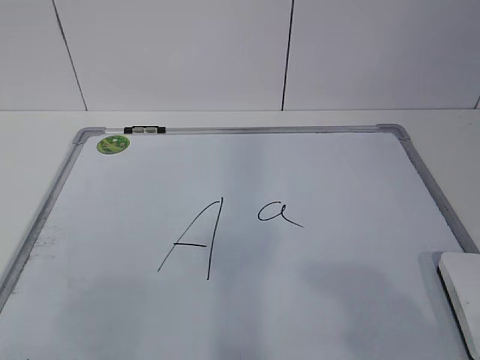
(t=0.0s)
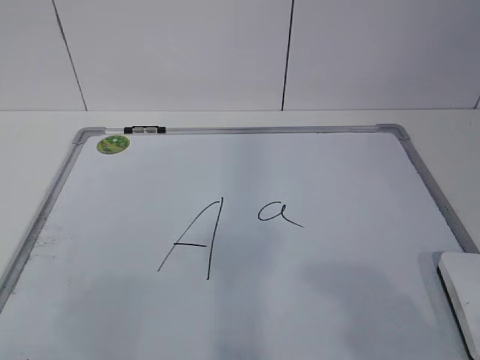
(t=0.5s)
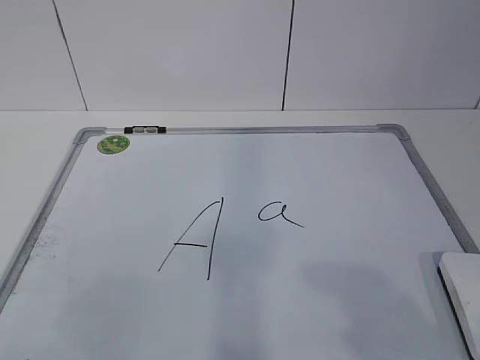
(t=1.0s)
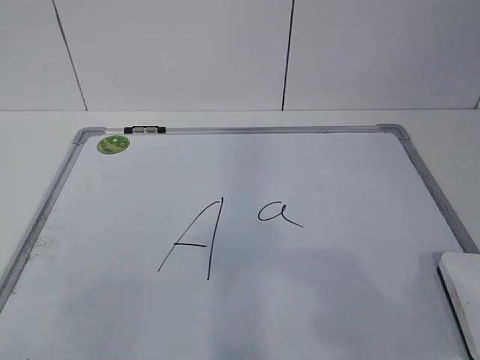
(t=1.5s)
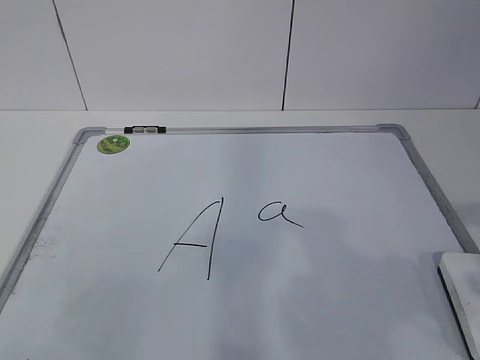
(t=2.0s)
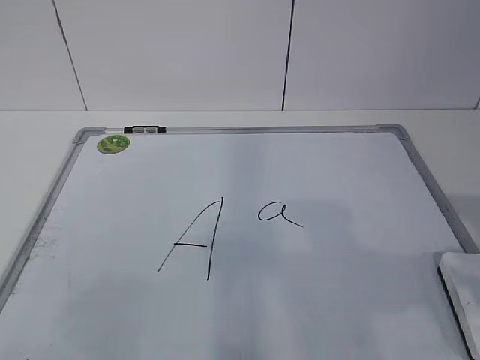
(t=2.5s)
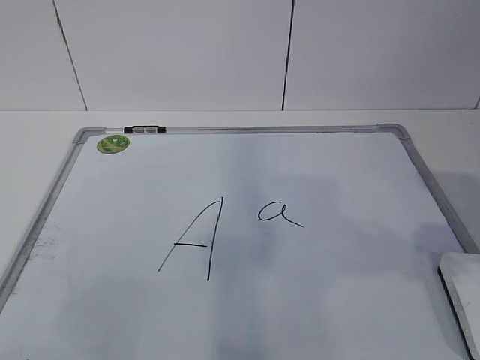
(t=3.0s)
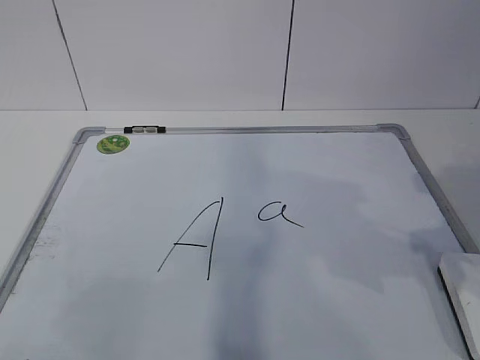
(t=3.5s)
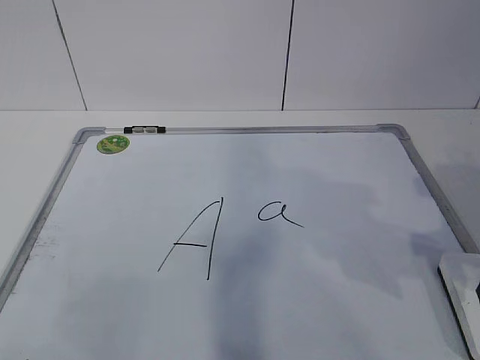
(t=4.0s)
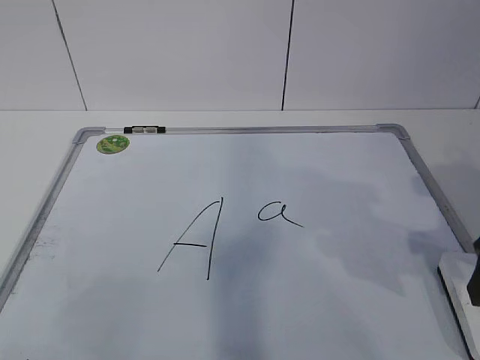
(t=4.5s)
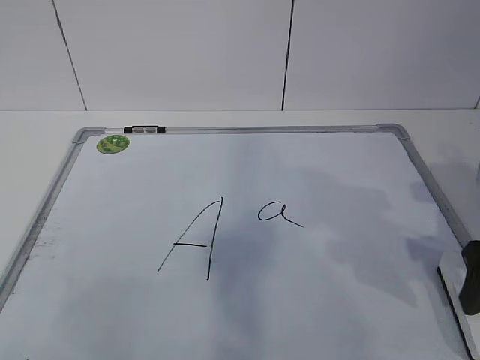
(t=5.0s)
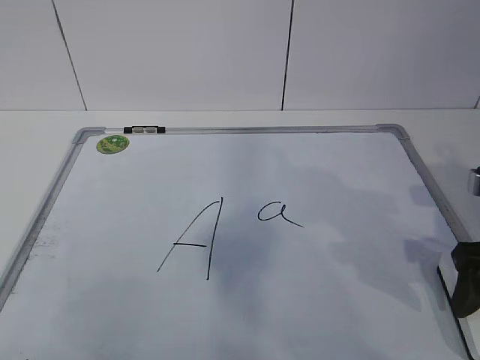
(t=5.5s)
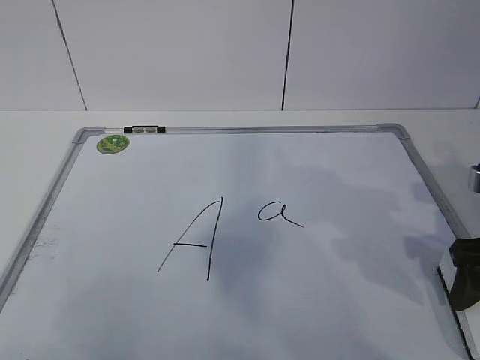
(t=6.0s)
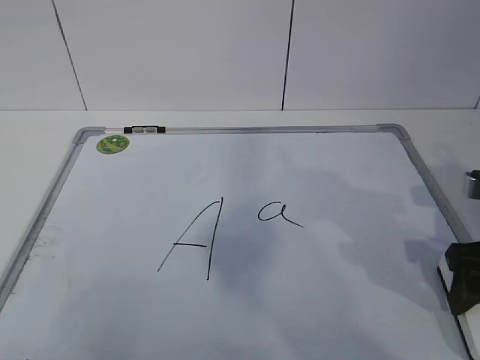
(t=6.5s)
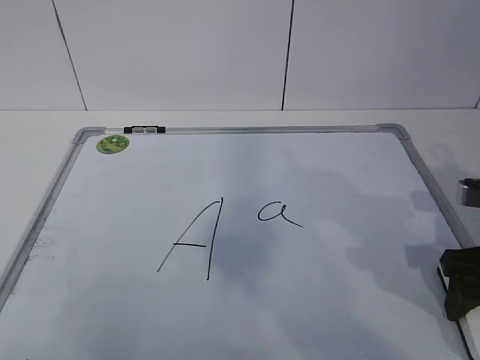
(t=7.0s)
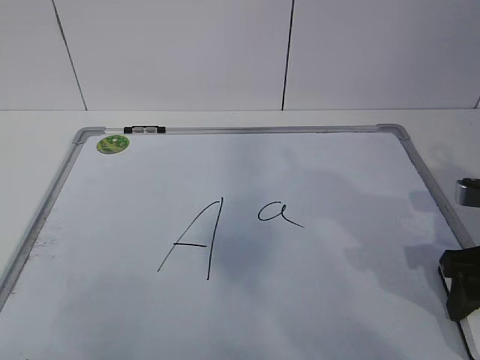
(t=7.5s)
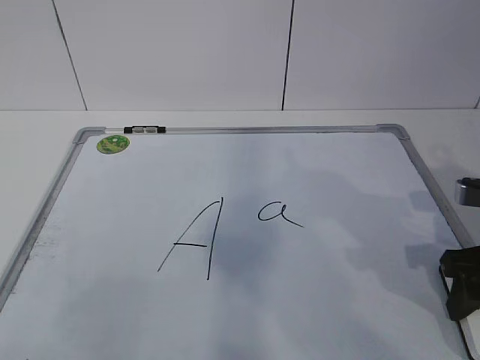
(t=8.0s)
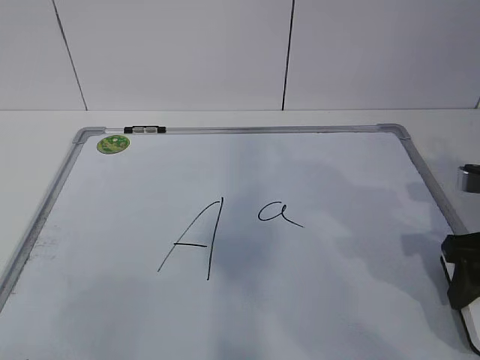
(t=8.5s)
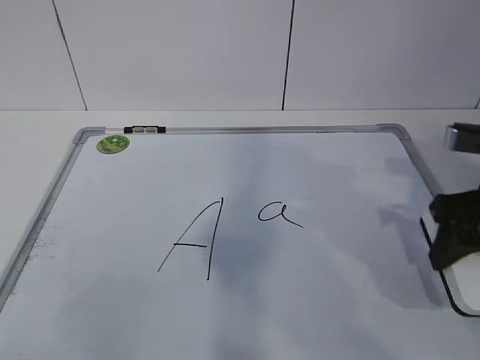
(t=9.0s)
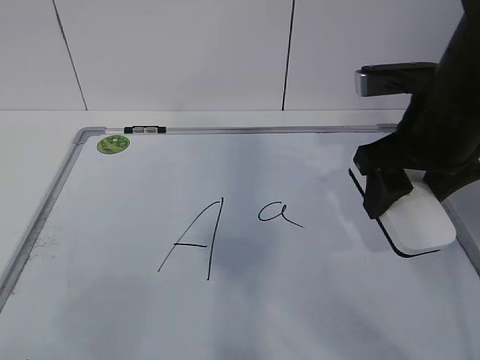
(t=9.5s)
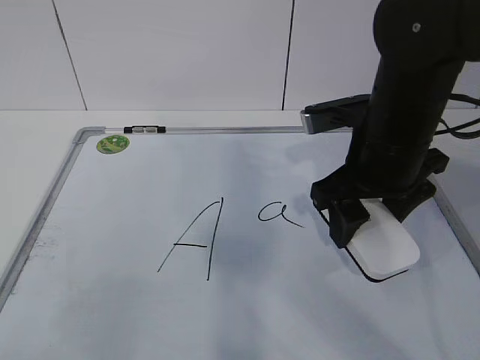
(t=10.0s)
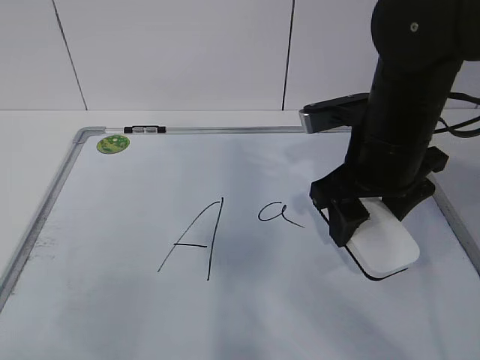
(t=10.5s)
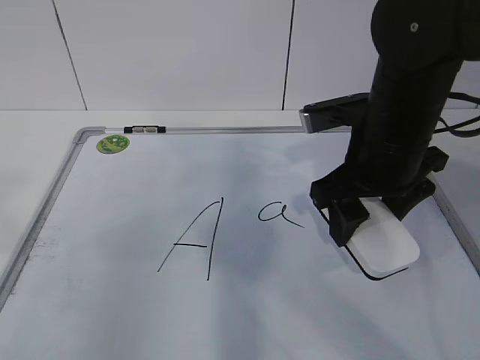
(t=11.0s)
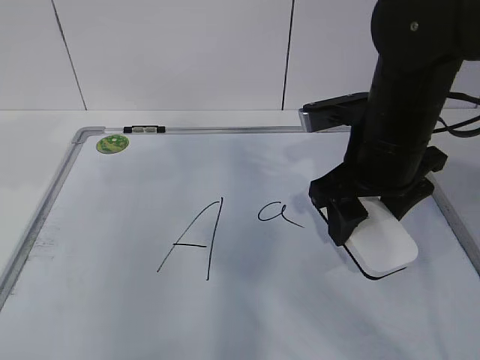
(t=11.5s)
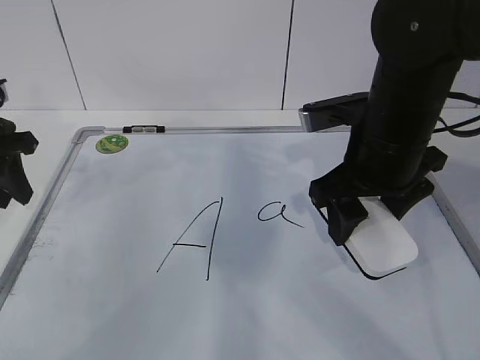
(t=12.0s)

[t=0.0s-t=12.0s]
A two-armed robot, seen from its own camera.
Task of the whole recording: pick up the eraser on the blackboard and erase the letter "a".
Step, t=7.0s to t=11.0s: Hold the drawing board steady with your left hand.
t=2.0s to t=4.0s: The right gripper moves forward, roughly 15 cm, and opens its fingers.
t=4.0s to t=6.0s: The right gripper moves some 5 cm.
t=6.0s to t=8.0s: The right gripper closes up.
t=8.0s to t=10.0s: The right gripper shifts about 15 cm to the left, upward and forward.
t=10.0s to t=12.0s: The left gripper moves forward, approximately 35 cm.

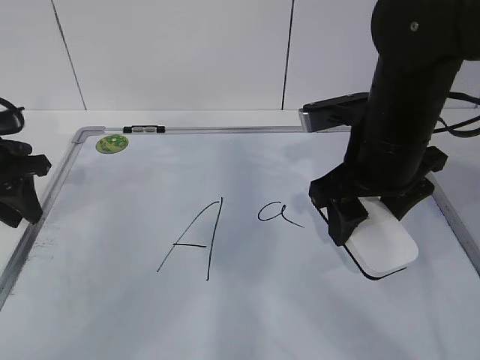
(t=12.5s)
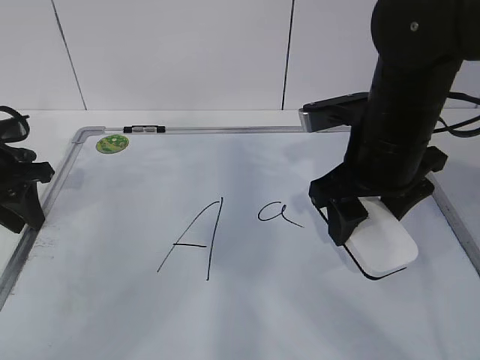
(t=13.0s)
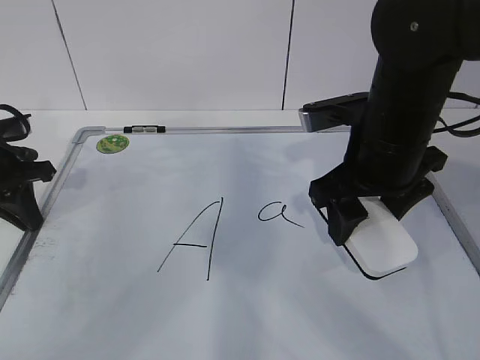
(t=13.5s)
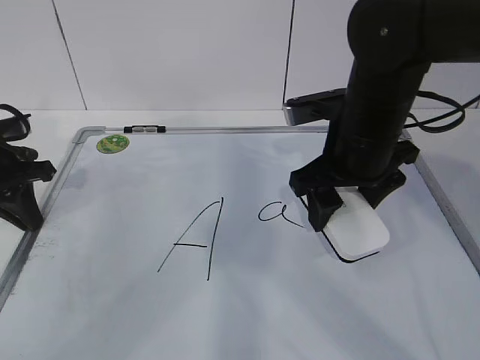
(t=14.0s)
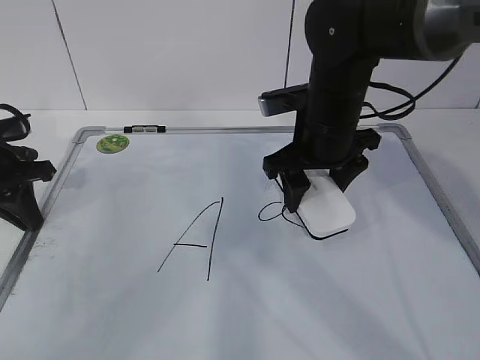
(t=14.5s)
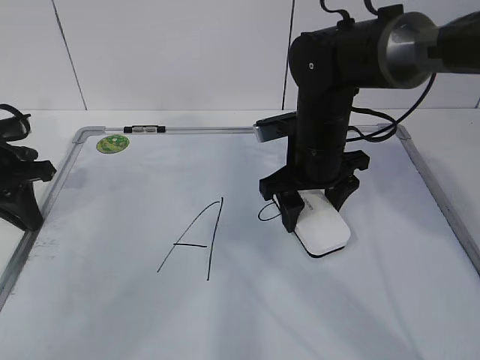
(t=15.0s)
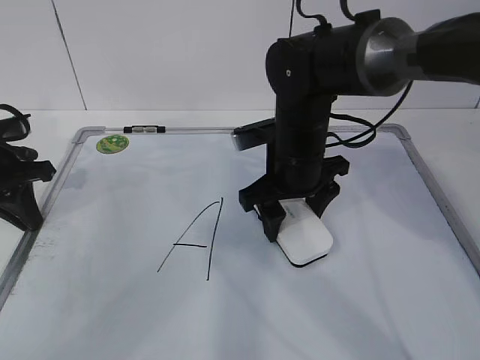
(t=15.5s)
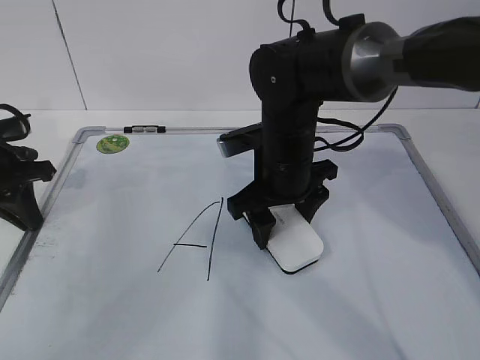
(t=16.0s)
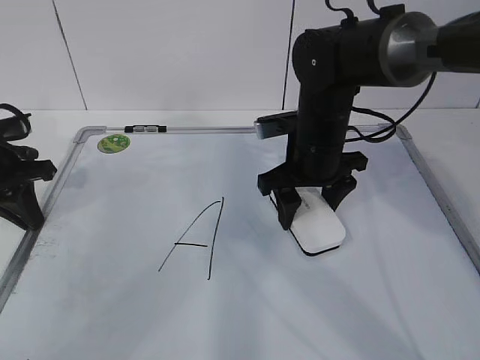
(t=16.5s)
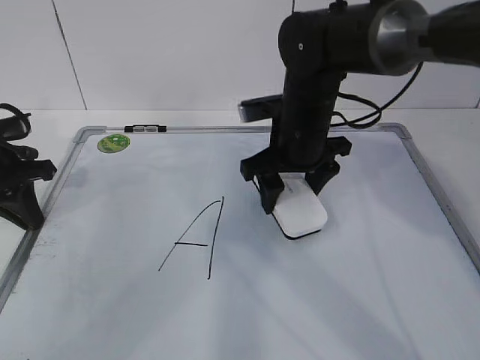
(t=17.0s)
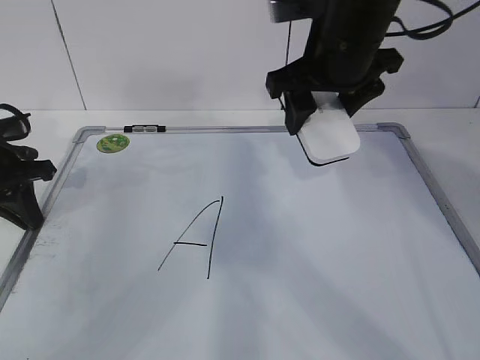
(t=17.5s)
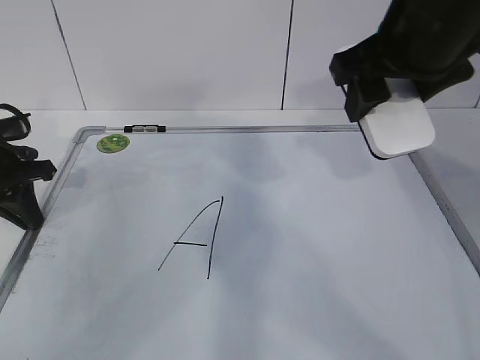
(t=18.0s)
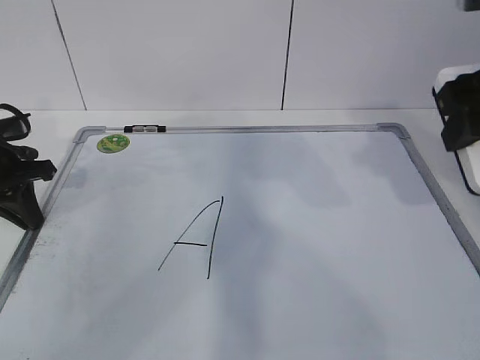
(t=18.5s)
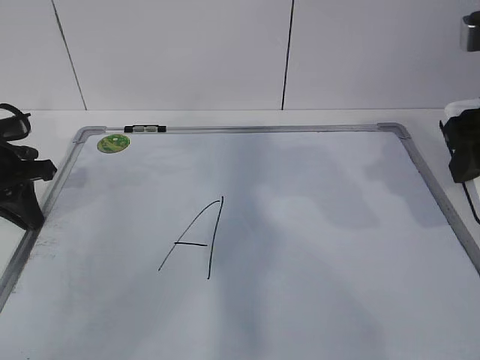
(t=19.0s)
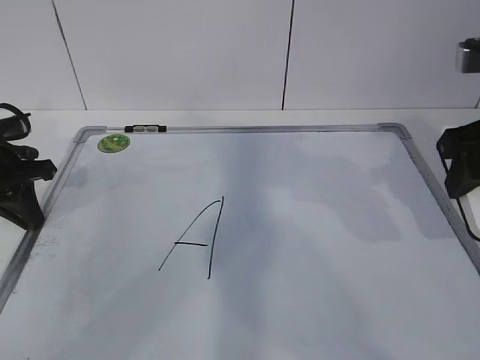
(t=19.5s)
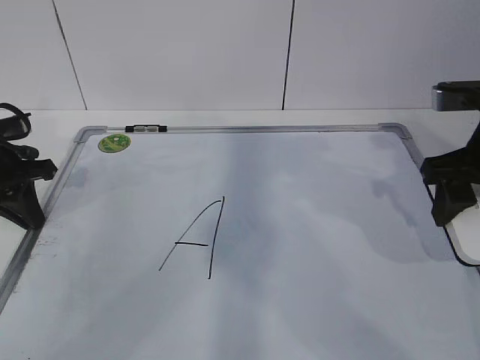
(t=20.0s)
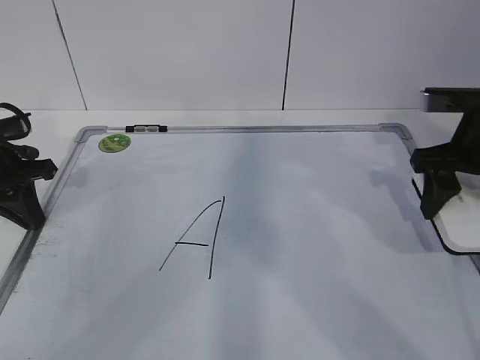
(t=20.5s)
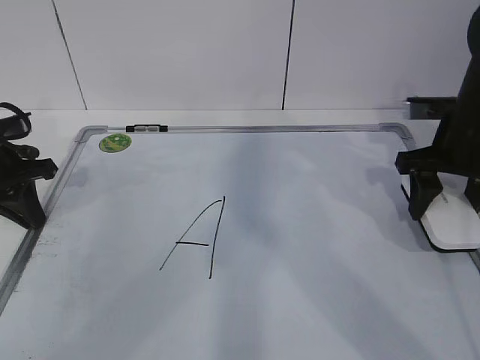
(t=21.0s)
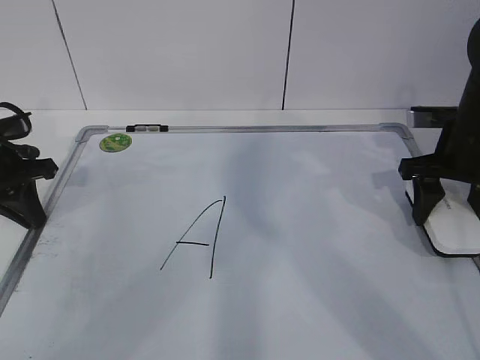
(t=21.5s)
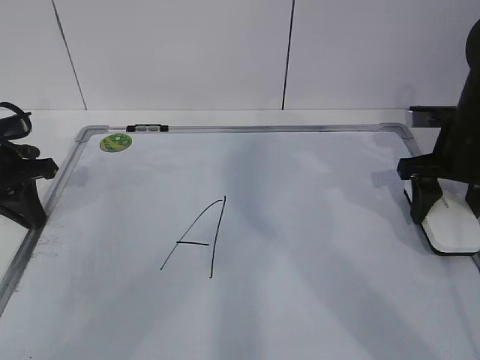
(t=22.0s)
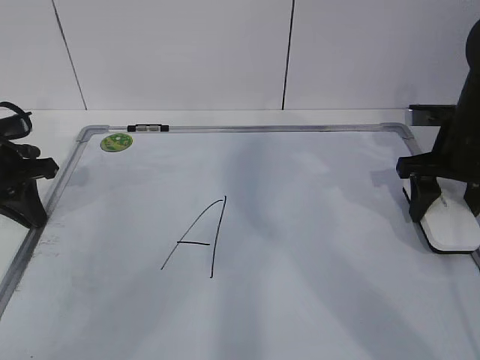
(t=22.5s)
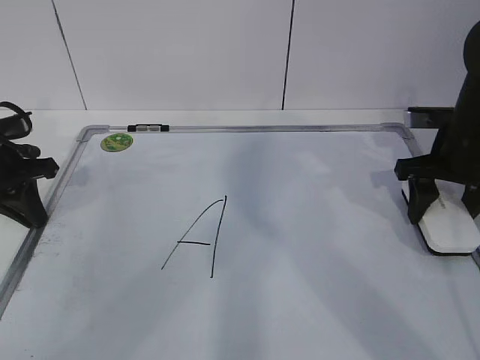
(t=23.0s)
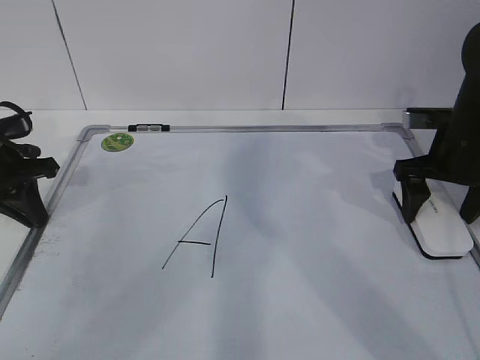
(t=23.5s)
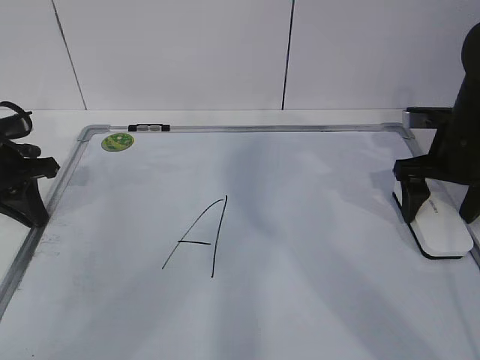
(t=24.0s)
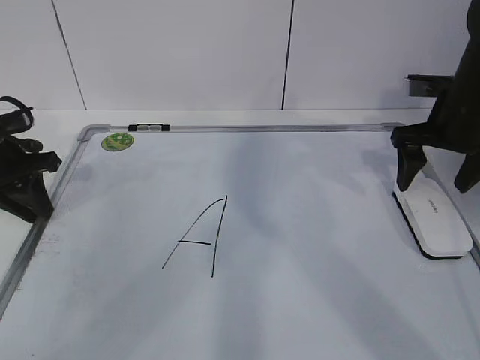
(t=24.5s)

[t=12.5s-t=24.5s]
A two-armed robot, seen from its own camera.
Task of the whole recording: pick up the eraser on the blackboard and erase the letter "a".
Step, t=12.5s to t=14.0s: Erase the letter a with your right hand.
Step, t=14.5s to t=19.0s: Put down the eraser with your right hand.
t=12.5s to t=14.5s: The left gripper closes up. Meanwhile the right gripper travels forward by some 5 cm.
t=16.5s to t=18.5s: The right gripper shifts roughly 25 cm upward, backward and to the right.
t=18.5s to t=20.5s: The right gripper heads downward and forward, covering about 15 cm.
t=20.5s to t=22.5s: The right gripper shifts by about 5 cm.
t=22.5s to t=24.5s: The left gripper opens its fingers, while the right gripper opens up.

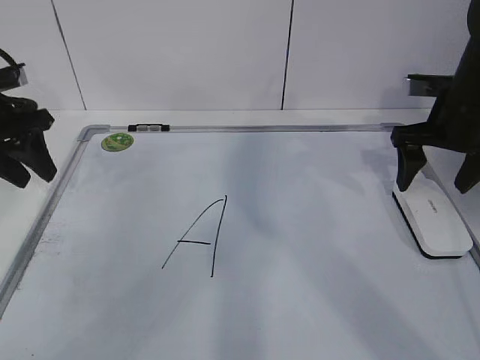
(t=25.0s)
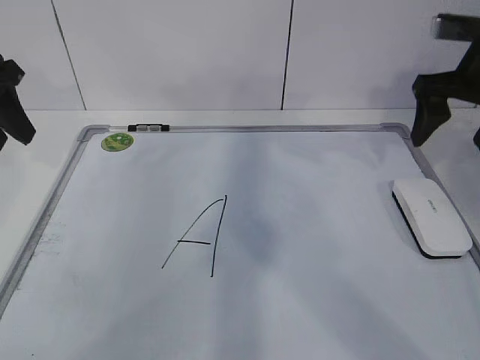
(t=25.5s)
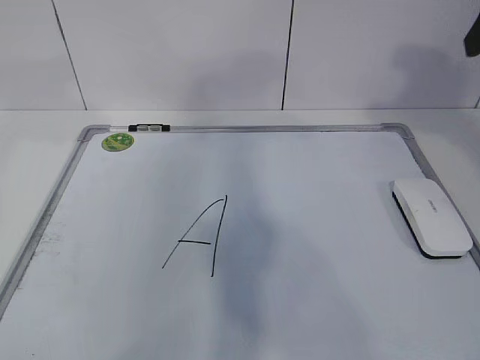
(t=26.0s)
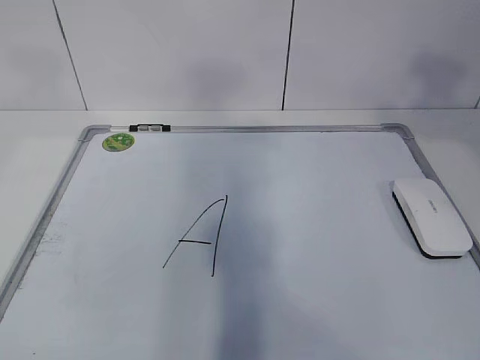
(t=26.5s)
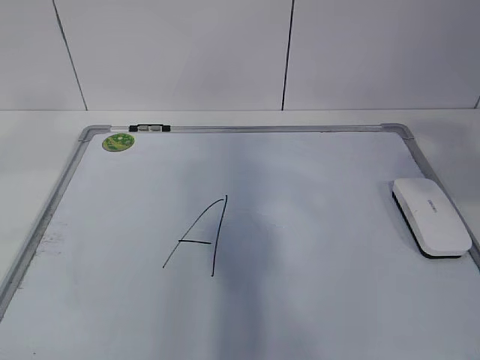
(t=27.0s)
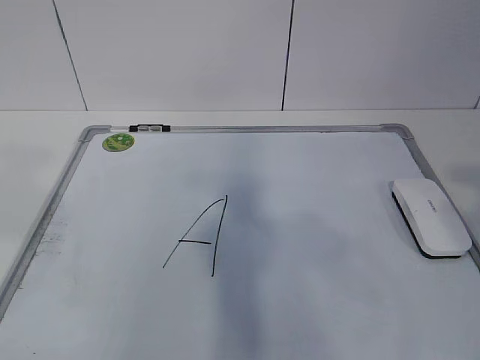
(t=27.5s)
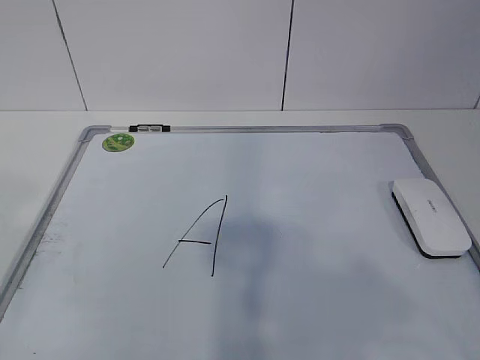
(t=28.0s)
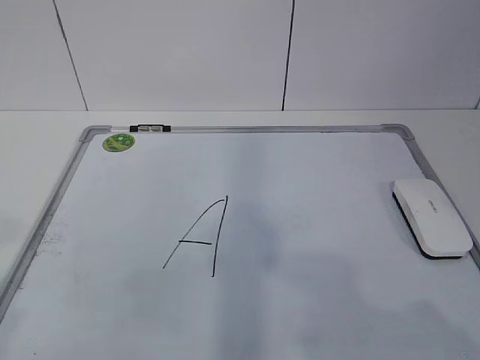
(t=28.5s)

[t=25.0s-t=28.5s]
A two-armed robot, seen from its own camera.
Task of the whole recording: pick up the eraser on the blackboard and erase the letter "a".
t=25.0s to t=27.0s: The grippers both shift backward and upward by approximately 35 cm.
t=27.0s to t=28.5s: The two grippers go roughly 15 cm downward and backward.
